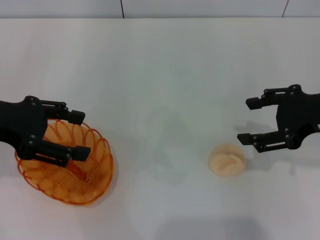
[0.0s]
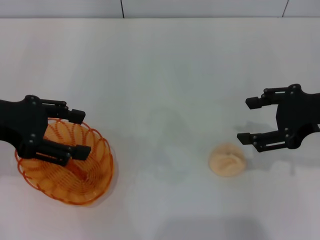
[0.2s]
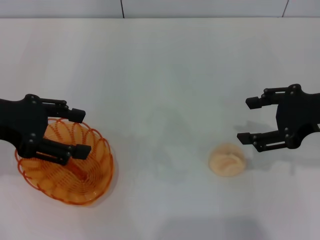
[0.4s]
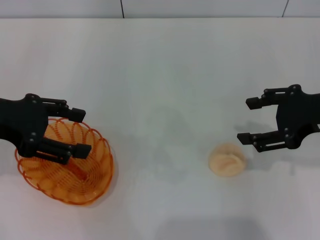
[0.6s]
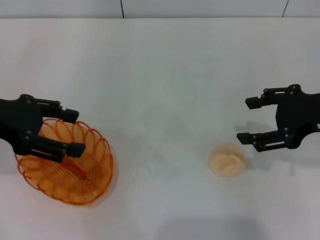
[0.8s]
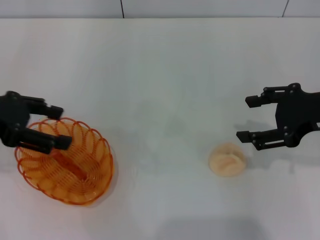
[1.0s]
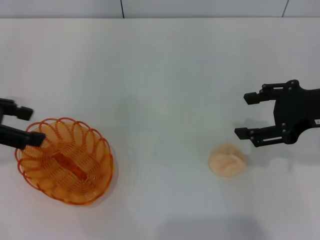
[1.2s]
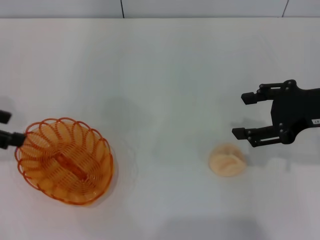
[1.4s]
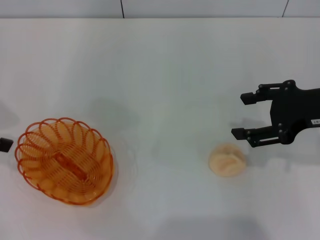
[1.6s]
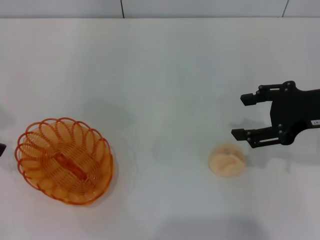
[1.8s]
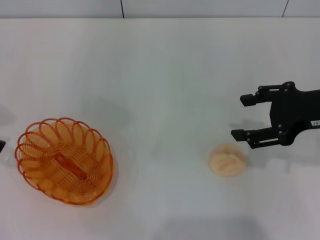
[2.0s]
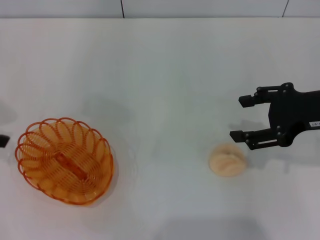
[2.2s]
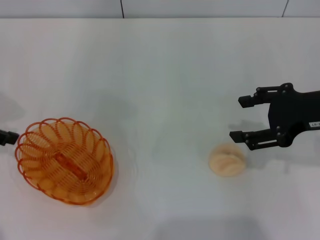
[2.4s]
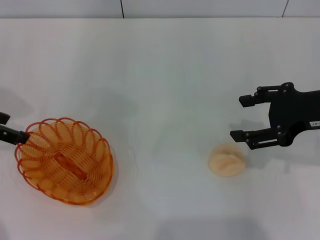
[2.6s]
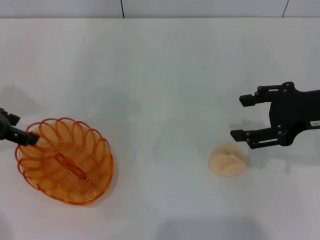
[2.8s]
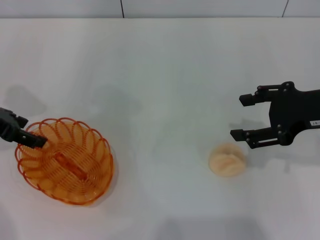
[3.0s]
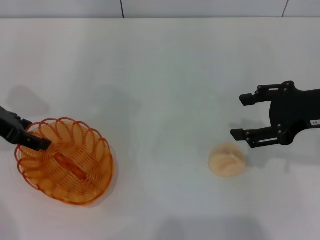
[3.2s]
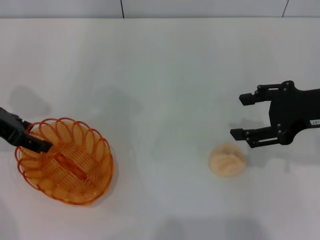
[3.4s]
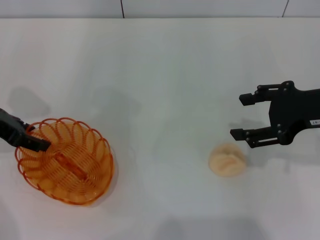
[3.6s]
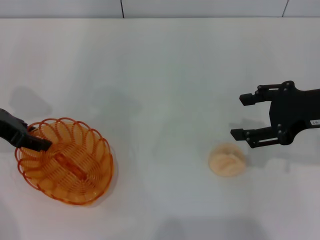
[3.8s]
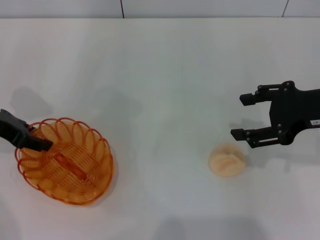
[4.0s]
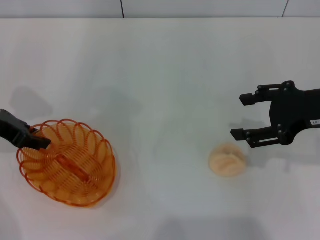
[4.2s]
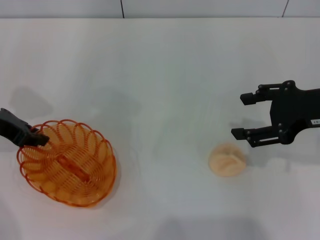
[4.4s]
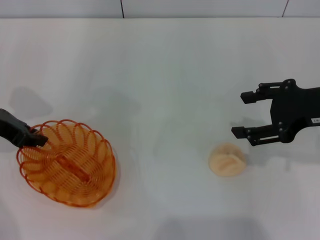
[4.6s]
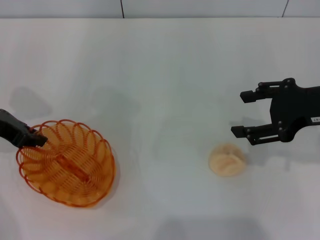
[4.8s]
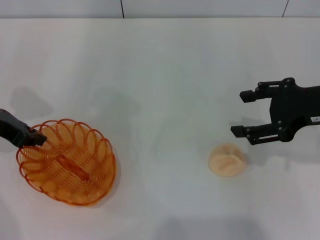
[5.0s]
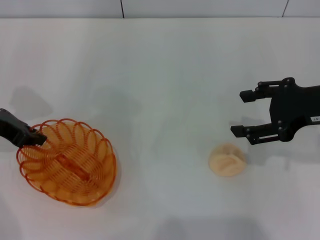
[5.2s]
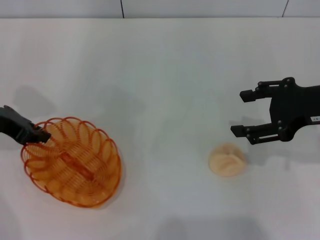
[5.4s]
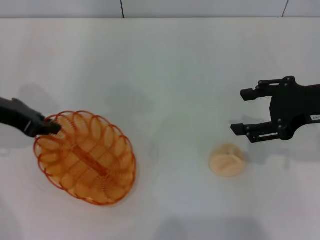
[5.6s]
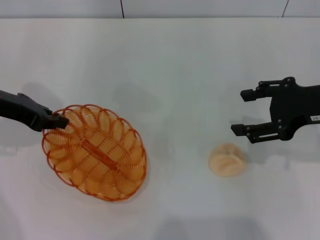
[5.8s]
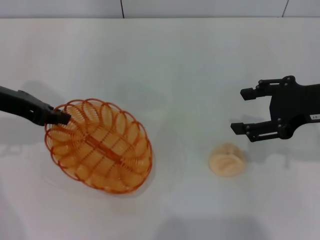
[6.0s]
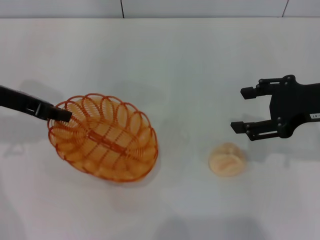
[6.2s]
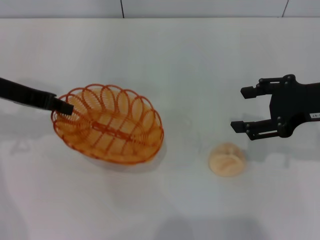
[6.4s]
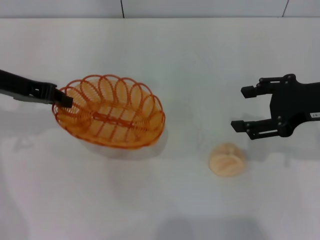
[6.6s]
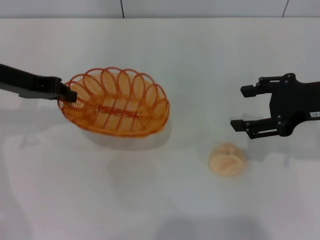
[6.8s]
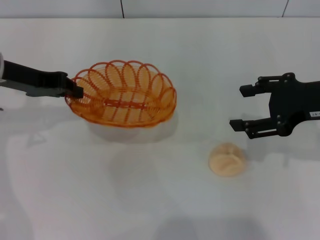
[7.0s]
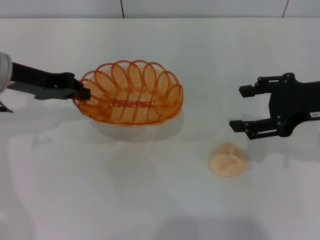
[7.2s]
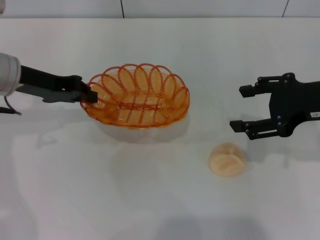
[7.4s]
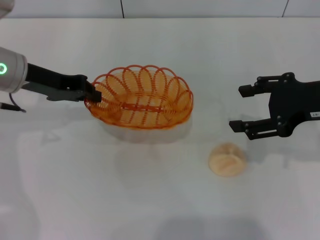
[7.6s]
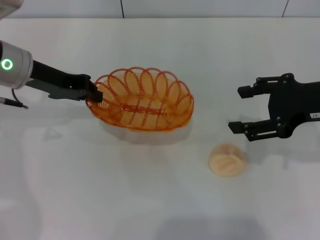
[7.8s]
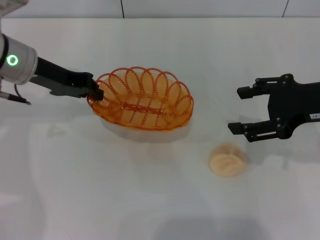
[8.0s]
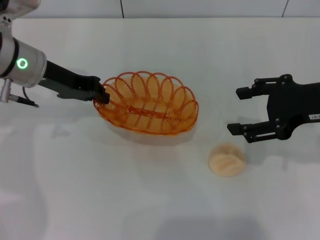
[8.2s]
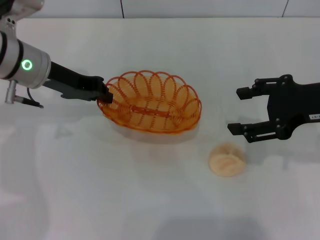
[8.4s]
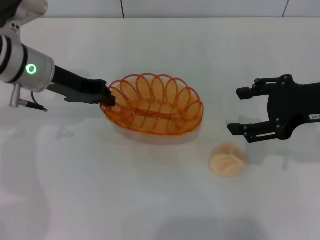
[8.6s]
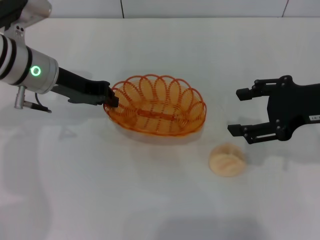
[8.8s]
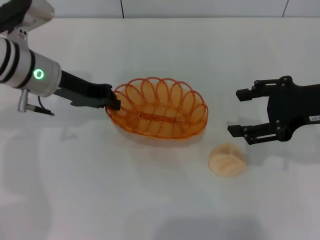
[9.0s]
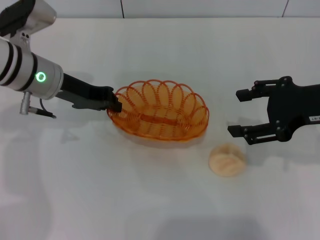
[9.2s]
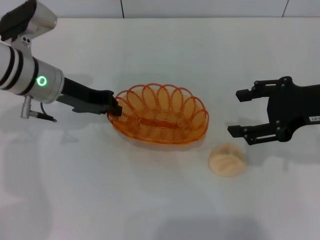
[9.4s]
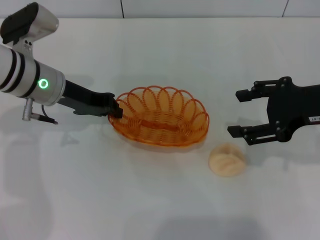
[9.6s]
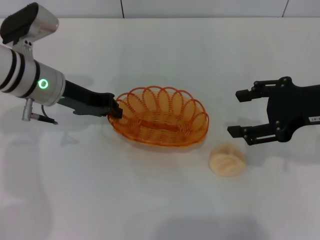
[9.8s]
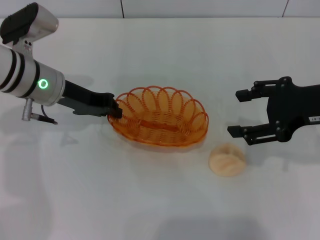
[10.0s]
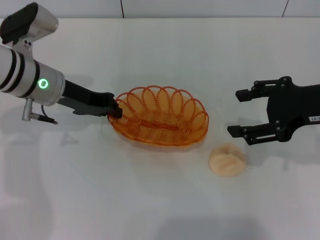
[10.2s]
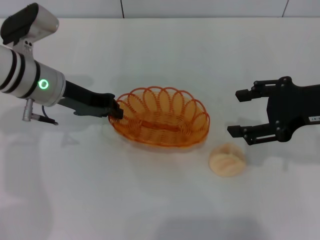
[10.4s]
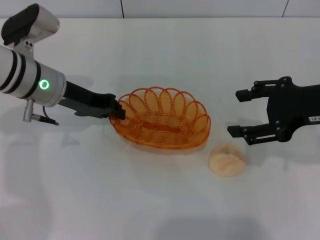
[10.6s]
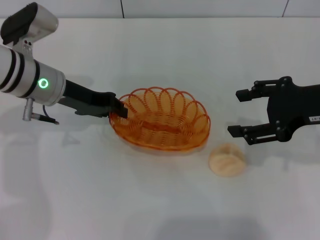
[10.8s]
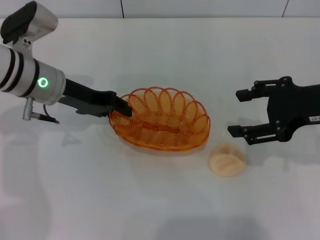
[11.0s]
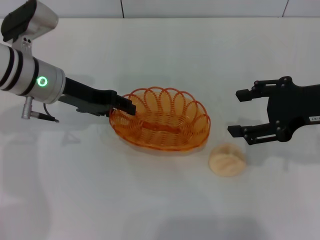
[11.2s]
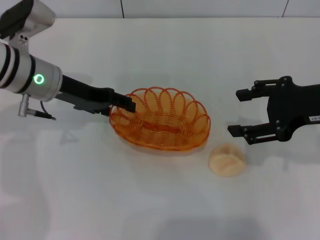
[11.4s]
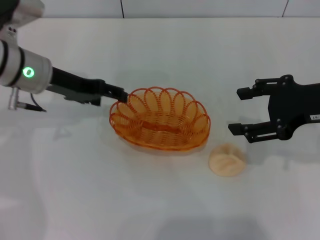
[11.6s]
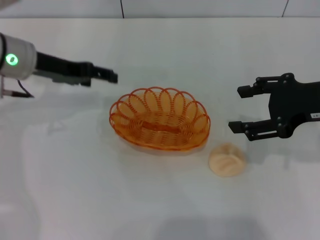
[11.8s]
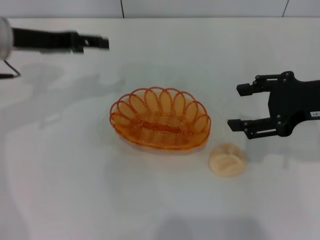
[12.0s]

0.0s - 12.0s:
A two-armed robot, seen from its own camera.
Step, 0.0s - 7.2s: Pick up the basket with the left gripper.
Step, 7.4s - 11.6s: Place the basket in the center of view with the left gripper.
0.0s - 1.6s: The left gripper is displaced to the left by roughly 5 cm.
1.6s - 3.0s: The left gripper is displaced downward by some 5 cm.
3.0s - 4.4s: The left gripper closes its fingers.
4.4s - 6.0s: The left gripper closes up.
6.0s - 7.6s: The left gripper moves about 5 cm.
7.6s - 10.4s: The grippers make only small movements.
10.4s - 12.0s: The left gripper is displaced upward and to the left by about 10 cm, and opens.

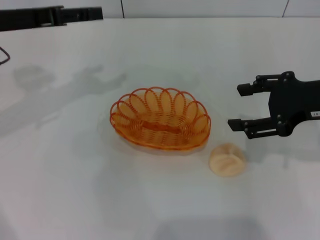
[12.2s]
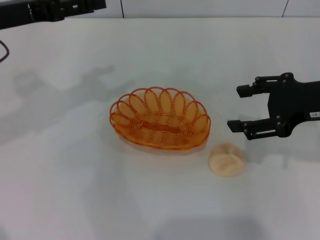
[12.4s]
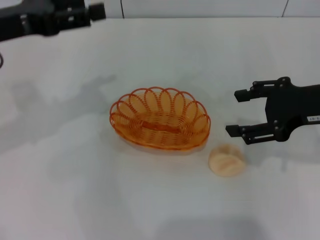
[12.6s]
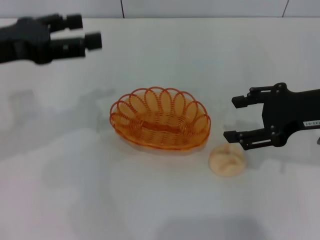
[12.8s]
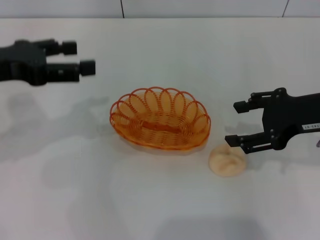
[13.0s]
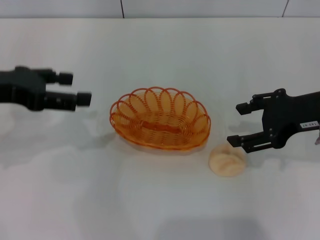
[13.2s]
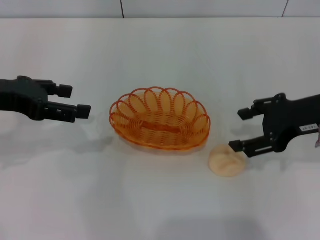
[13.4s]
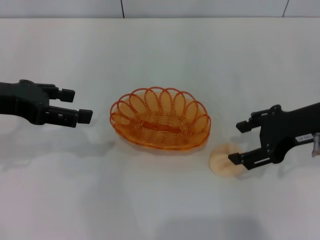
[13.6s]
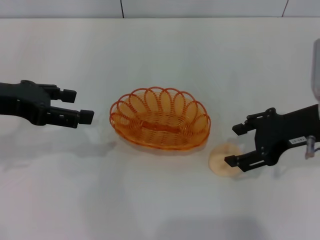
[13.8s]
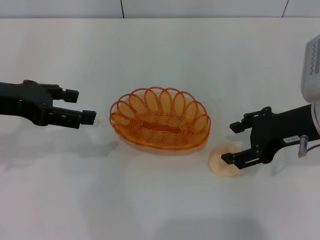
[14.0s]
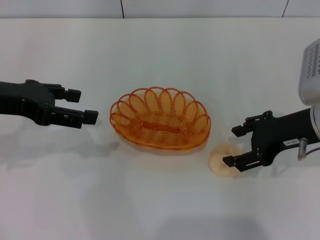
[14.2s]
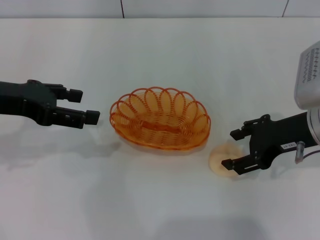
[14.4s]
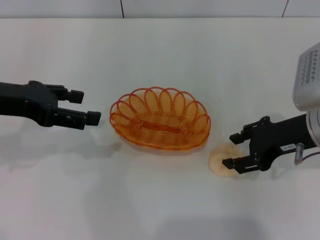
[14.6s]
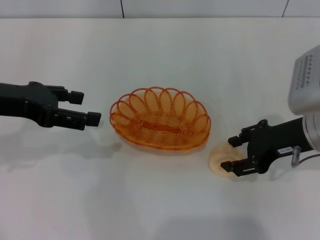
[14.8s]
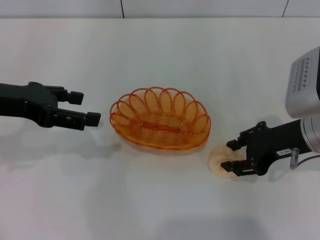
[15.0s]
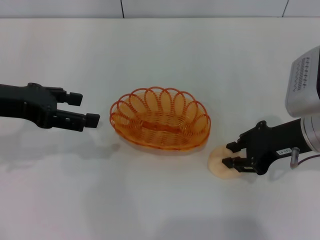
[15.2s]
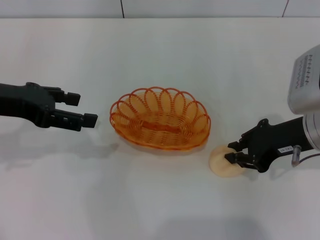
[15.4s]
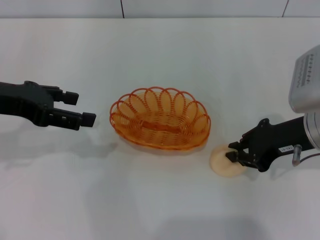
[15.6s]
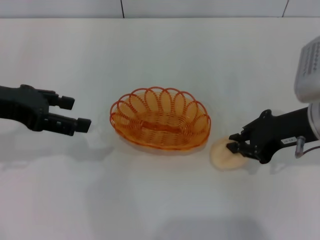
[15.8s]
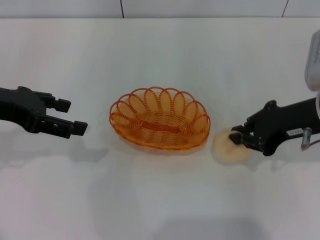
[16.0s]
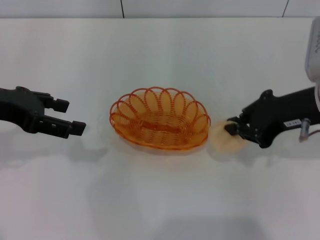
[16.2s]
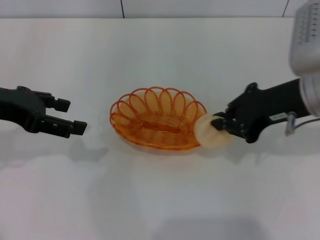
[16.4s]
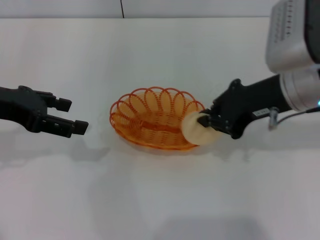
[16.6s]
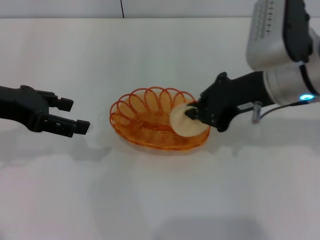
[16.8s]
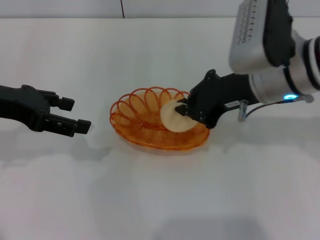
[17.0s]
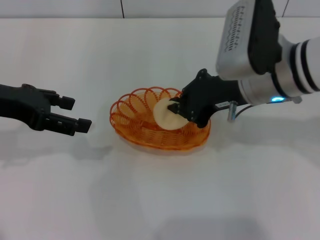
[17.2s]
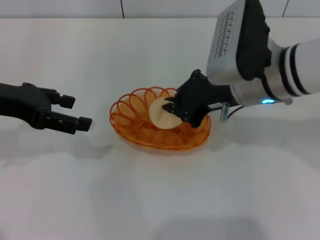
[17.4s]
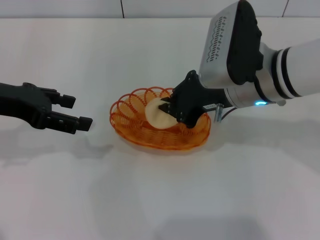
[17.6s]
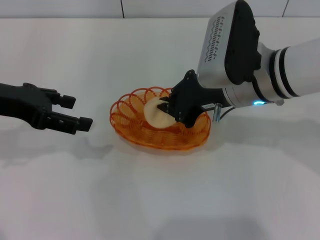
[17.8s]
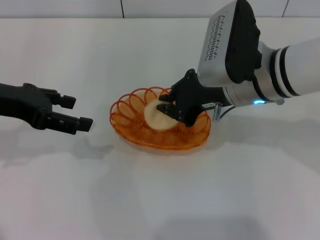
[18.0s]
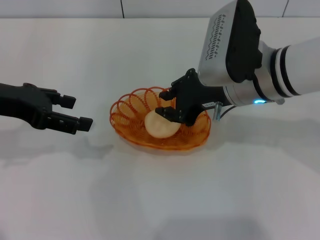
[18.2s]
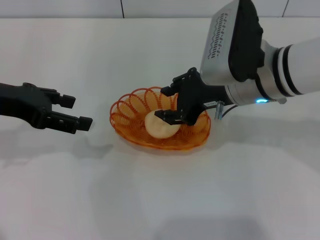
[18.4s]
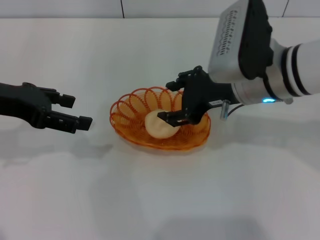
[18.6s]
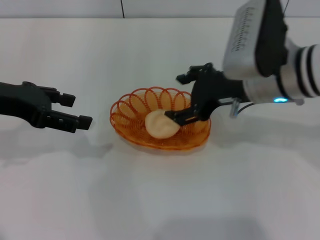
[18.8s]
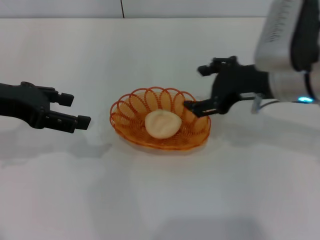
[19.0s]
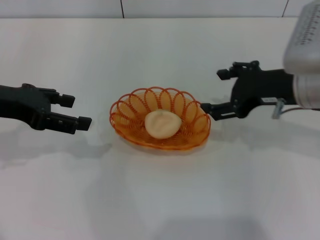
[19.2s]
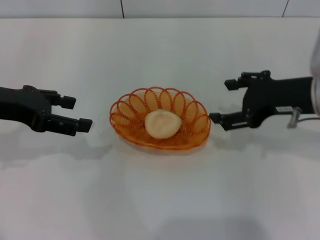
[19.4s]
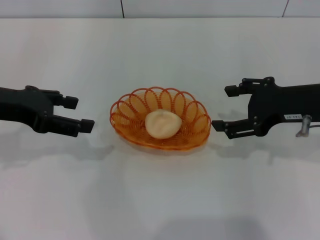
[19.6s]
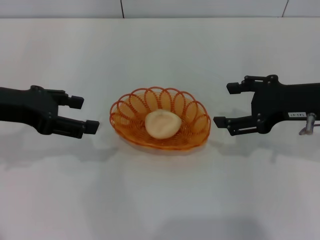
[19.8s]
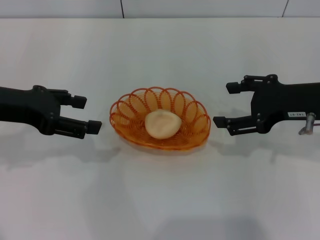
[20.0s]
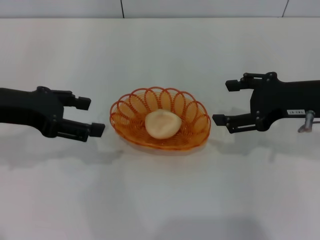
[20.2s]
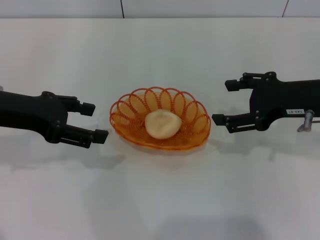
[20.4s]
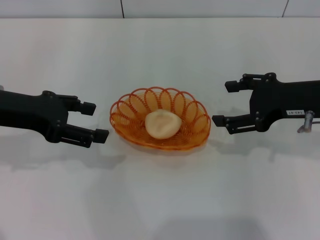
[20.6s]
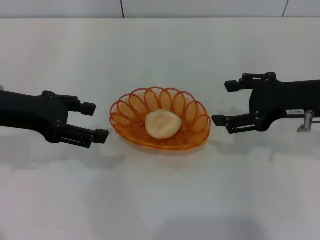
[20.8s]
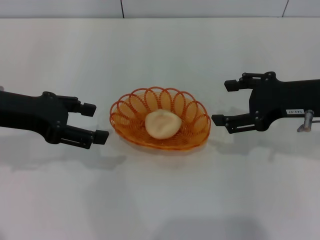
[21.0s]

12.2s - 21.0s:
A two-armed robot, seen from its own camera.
Step, 12.2s - 16.2s: Pick up the egg yolk pastry with the right gripper.
Step, 16.6s - 19.2s: Place the egg yolk pastry into the basket with the right gripper.
12.2s - 13.6s: The left gripper goes roughly 5 cm backward.
13.6s - 15.2s: The grippers stay close to where they were, moving slightly.
15.2s - 16.6s: The right gripper travels upward by approximately 5 cm, and closes.
16.6s - 18.0s: The right gripper shifts some 5 cm to the left.
18.0s - 19.6s: The right gripper shifts about 10 cm to the right, and opens up.
19.6s - 21.0s: There are only small adjustments of the grippers.
